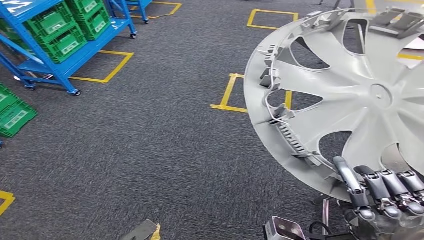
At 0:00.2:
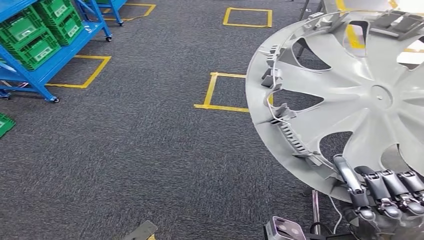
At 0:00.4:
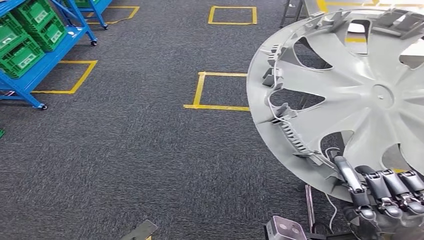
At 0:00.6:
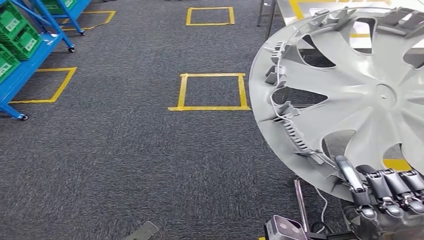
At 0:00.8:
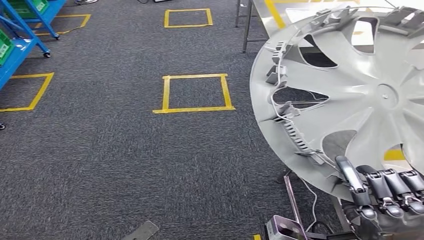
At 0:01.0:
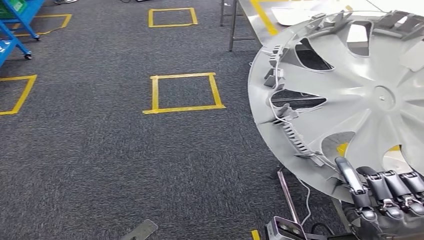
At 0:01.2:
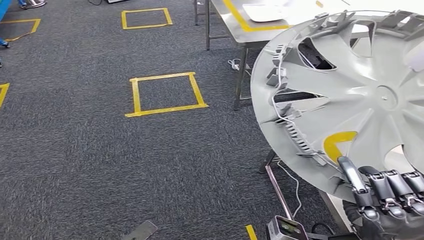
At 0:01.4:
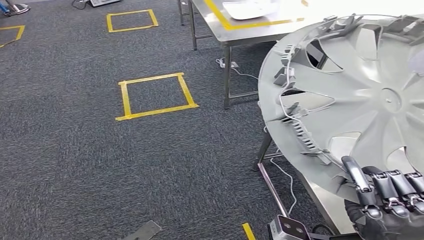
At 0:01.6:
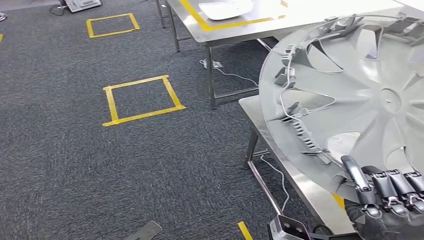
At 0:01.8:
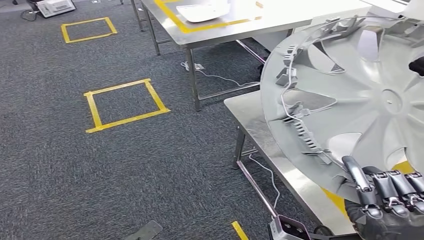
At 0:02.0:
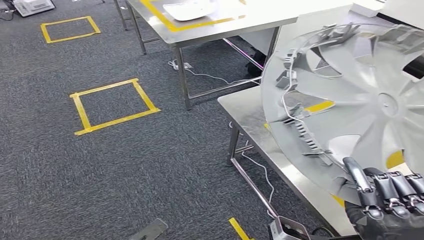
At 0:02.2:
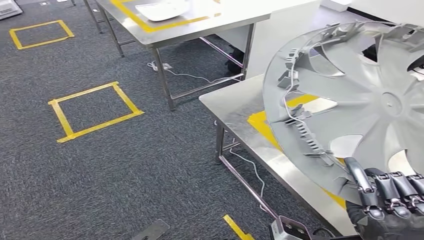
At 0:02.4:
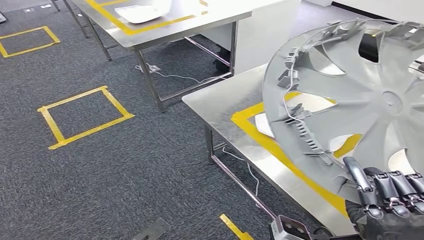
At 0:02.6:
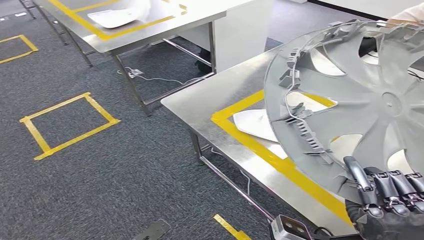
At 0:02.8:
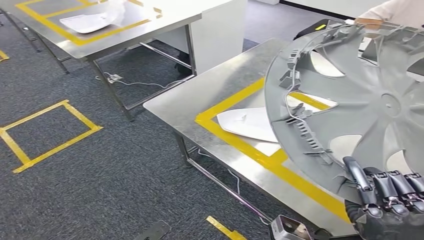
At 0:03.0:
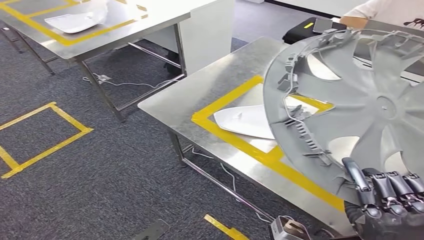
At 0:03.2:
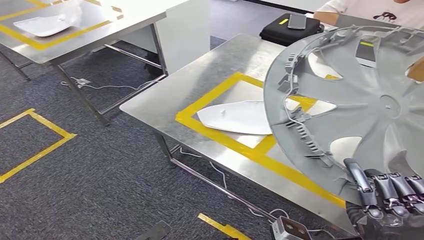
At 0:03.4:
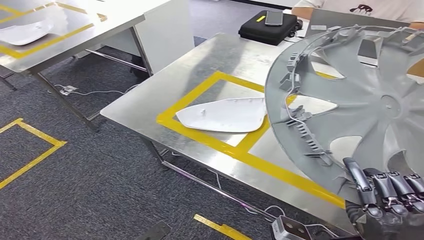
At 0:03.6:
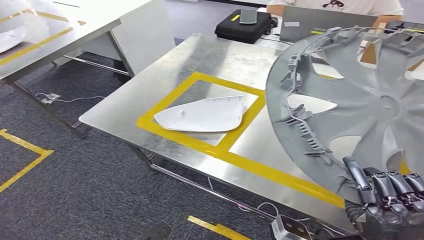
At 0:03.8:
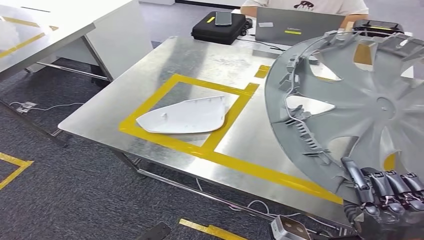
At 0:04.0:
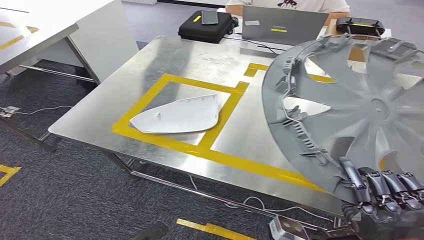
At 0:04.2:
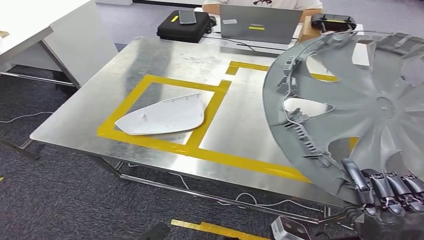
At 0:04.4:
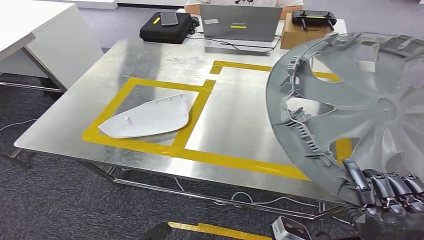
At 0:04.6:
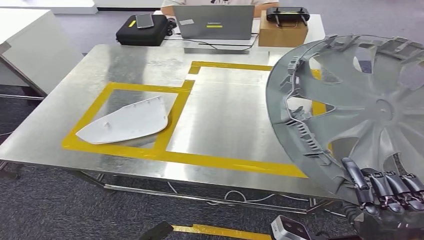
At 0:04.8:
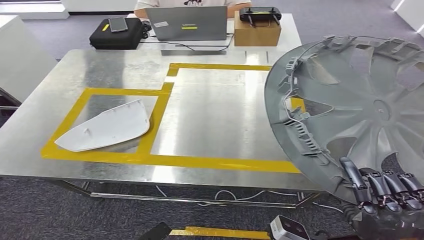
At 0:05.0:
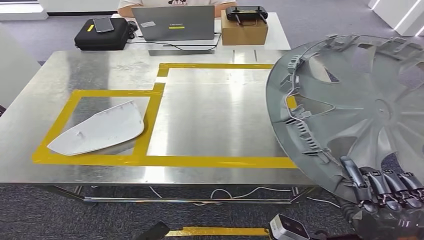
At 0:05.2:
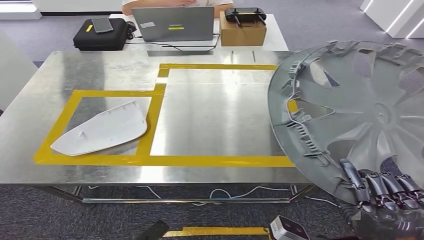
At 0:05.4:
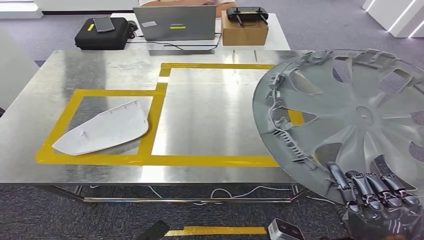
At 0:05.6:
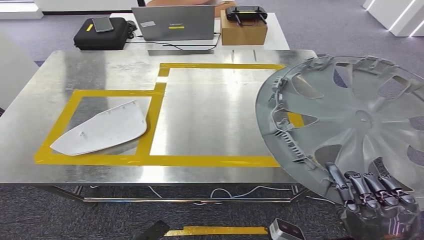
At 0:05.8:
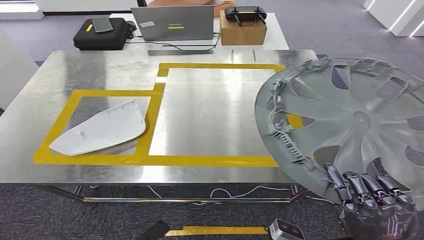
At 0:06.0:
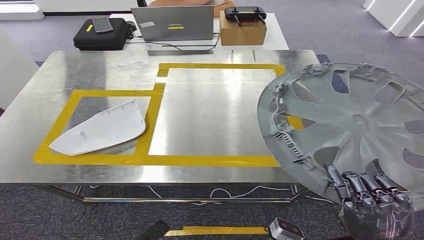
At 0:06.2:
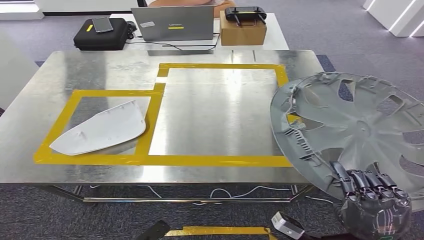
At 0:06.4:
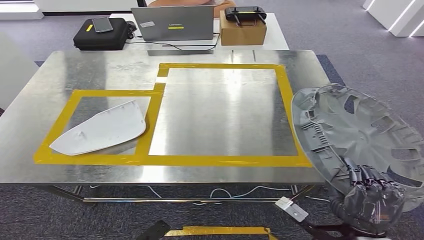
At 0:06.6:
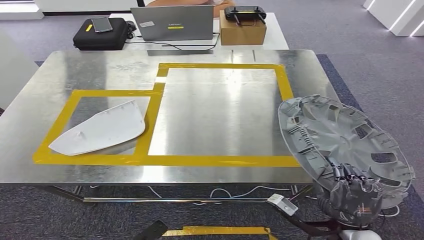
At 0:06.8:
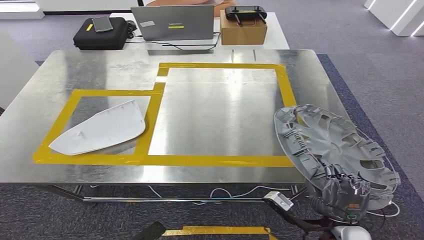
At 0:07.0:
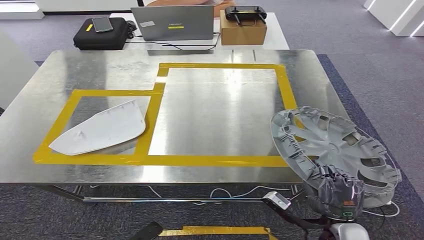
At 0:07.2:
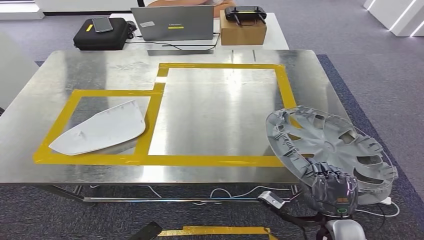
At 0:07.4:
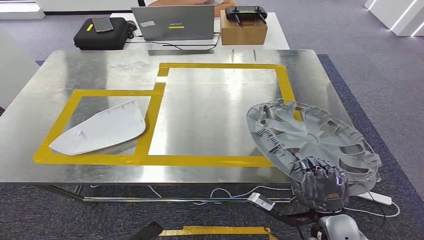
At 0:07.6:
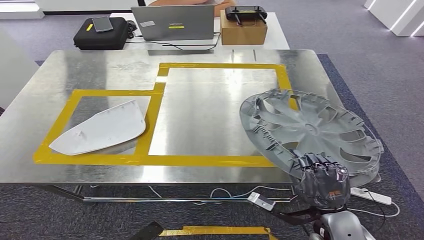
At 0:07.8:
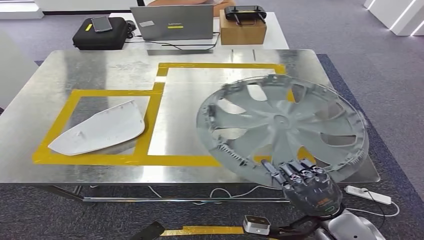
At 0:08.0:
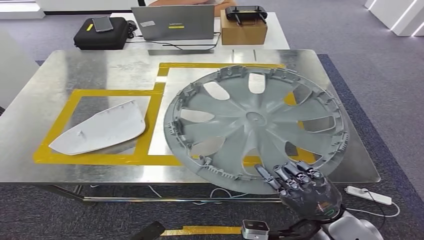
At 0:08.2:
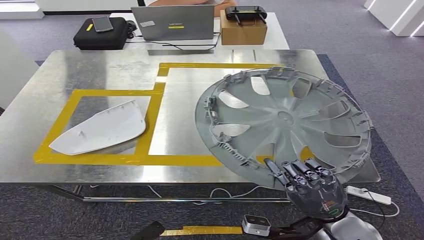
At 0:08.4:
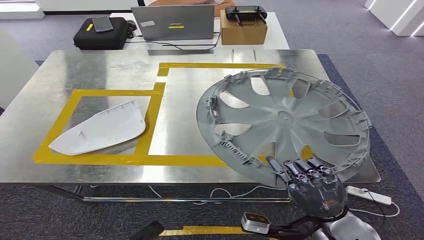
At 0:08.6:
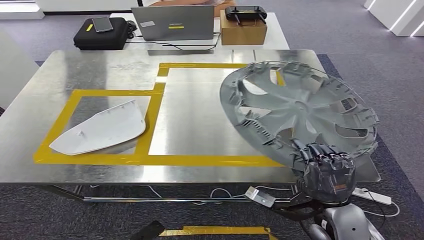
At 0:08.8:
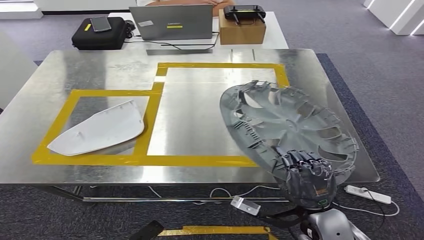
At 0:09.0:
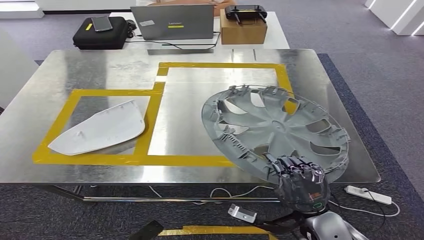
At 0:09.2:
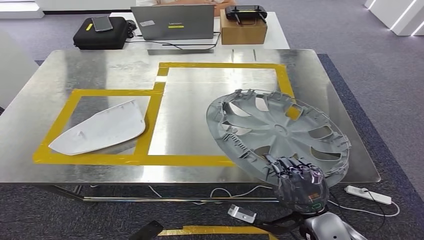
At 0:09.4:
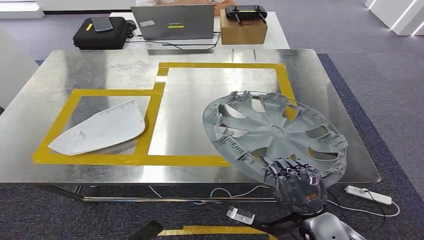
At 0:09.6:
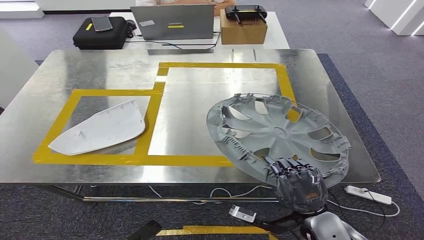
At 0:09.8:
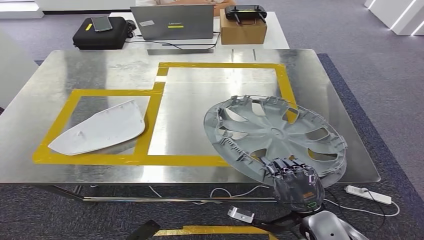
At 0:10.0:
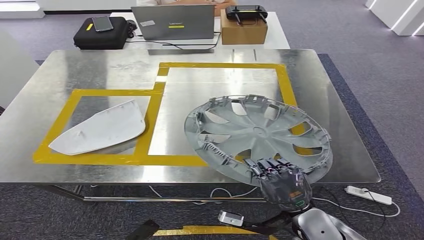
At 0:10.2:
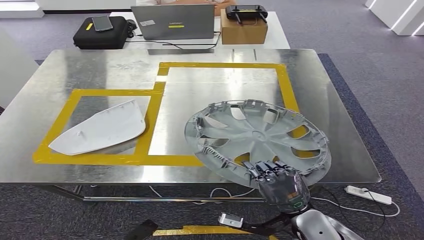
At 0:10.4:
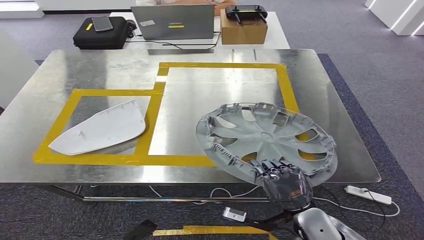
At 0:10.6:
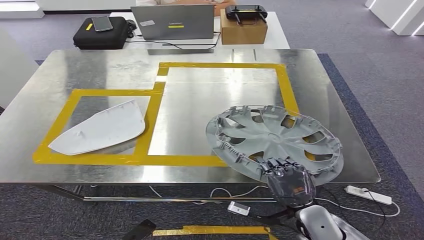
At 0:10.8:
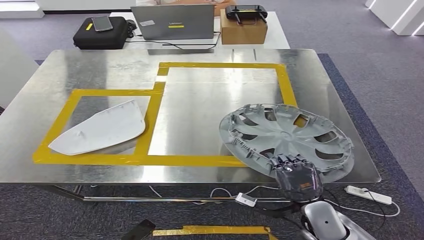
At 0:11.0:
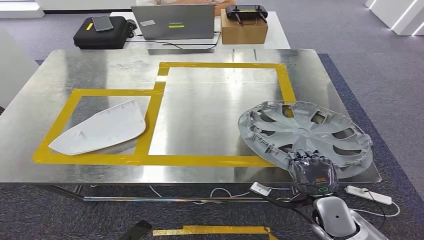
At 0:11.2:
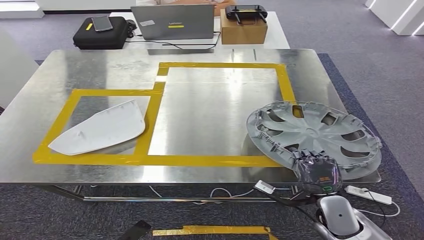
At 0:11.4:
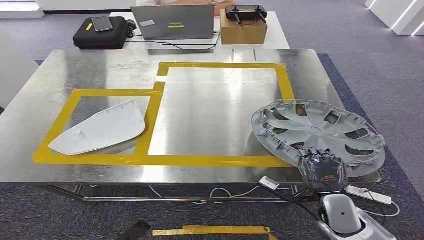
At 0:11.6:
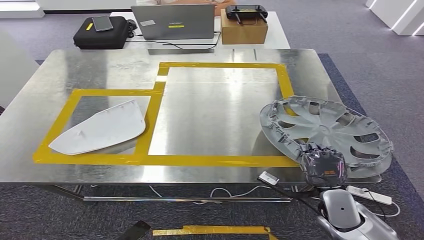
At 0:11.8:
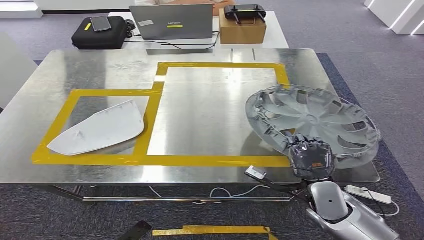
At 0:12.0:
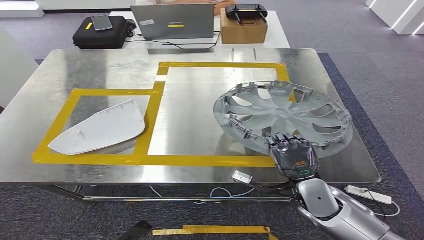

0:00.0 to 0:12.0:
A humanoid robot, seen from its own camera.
Step, 0:00.0 to 0:03.4: Bring the small component to the front of the workbench.
0:06.0 to 0:07.6: The right hand goes approximately 10 cm downward and forward.
0:09.0 to 0:10.4: The hands make only small movements.
0:10.4 to 0:12.0: The right hand is displaced forward by approximately 10 cm.

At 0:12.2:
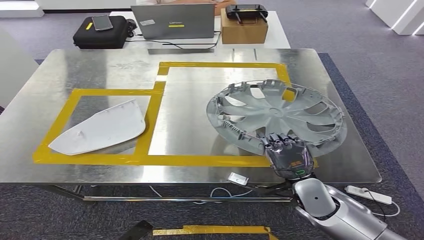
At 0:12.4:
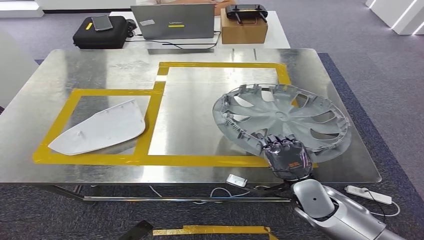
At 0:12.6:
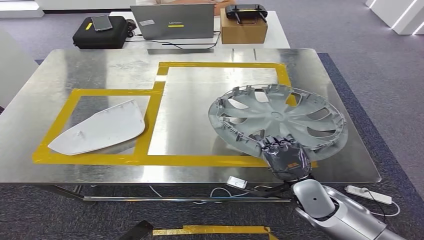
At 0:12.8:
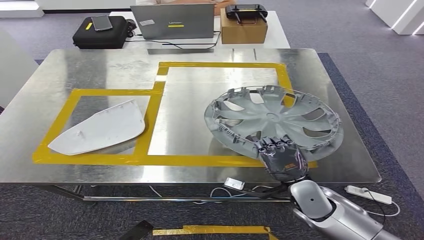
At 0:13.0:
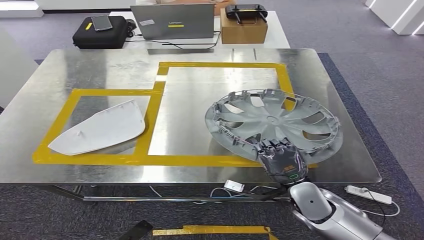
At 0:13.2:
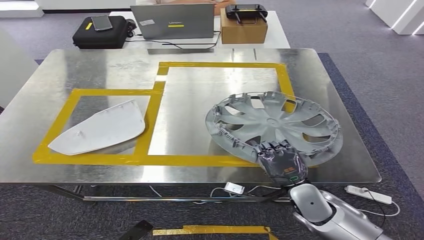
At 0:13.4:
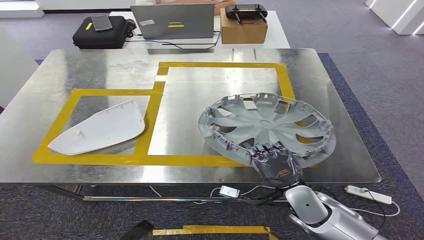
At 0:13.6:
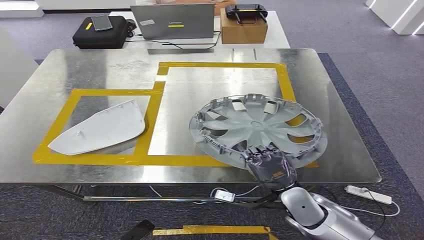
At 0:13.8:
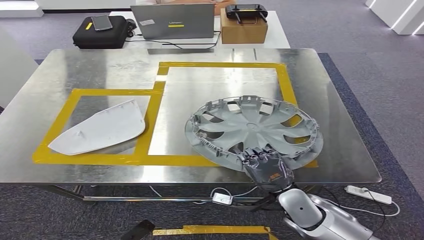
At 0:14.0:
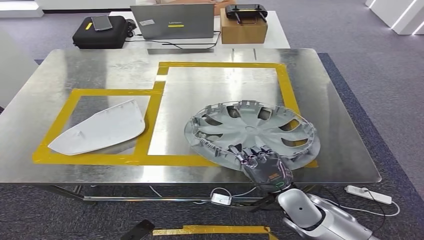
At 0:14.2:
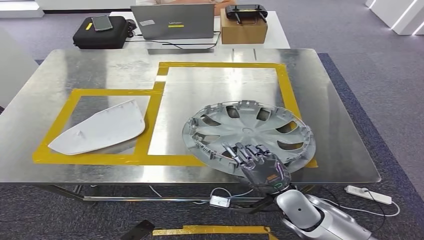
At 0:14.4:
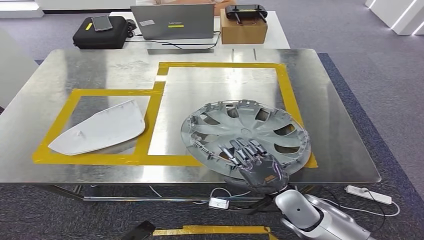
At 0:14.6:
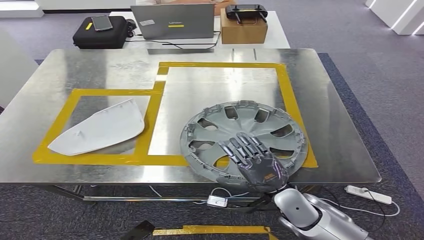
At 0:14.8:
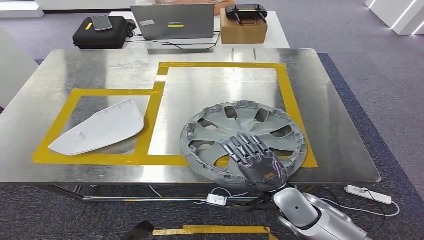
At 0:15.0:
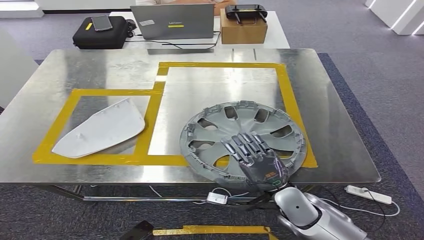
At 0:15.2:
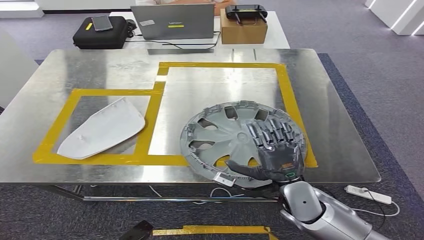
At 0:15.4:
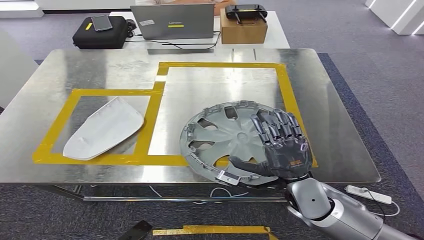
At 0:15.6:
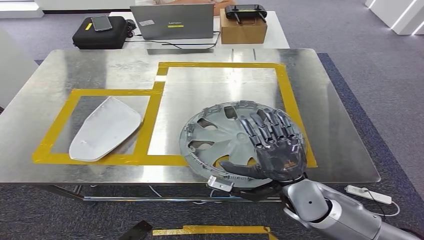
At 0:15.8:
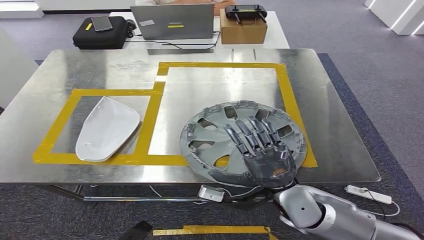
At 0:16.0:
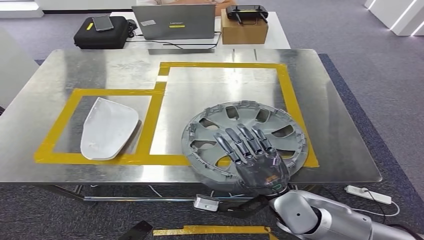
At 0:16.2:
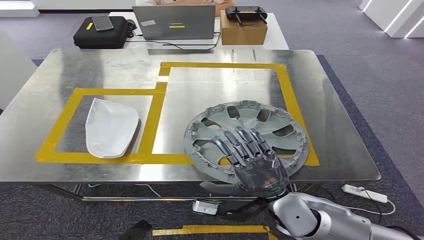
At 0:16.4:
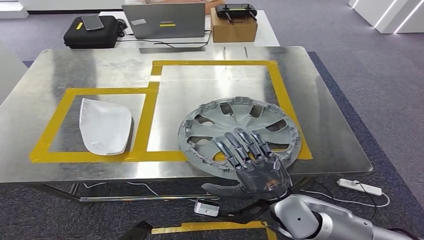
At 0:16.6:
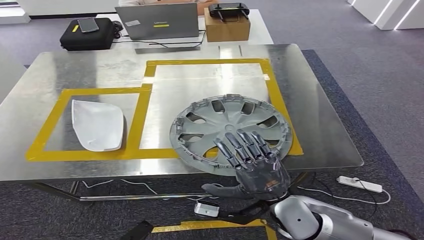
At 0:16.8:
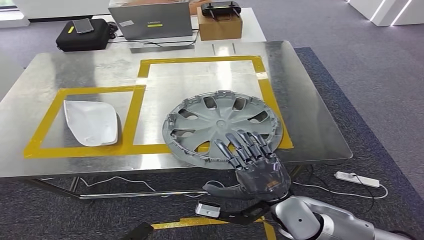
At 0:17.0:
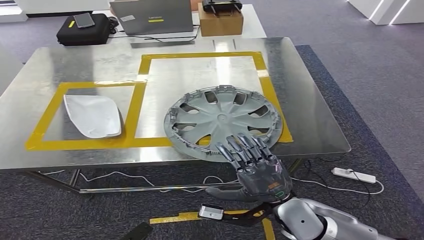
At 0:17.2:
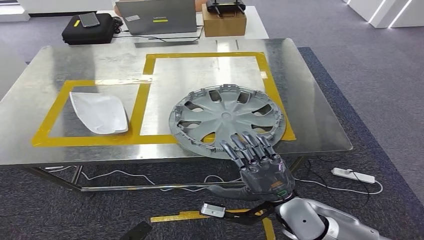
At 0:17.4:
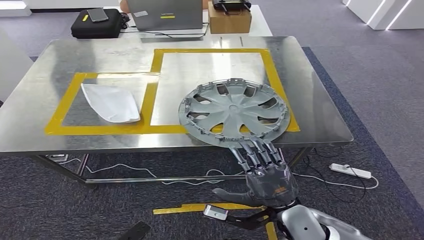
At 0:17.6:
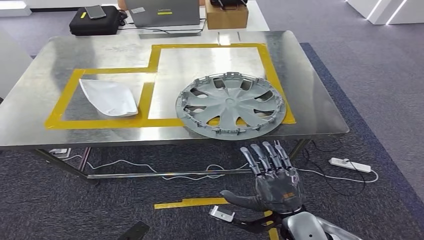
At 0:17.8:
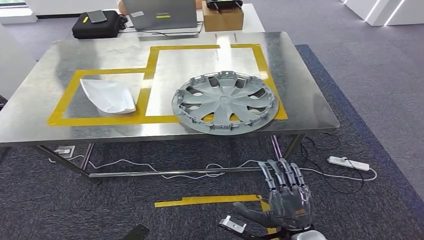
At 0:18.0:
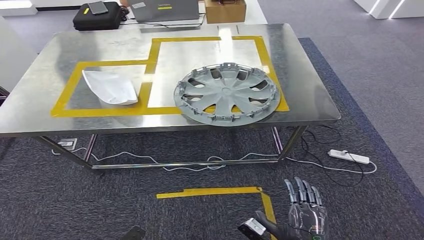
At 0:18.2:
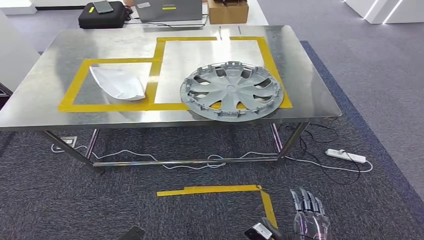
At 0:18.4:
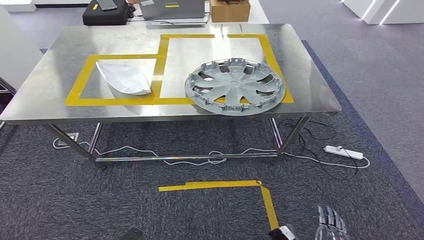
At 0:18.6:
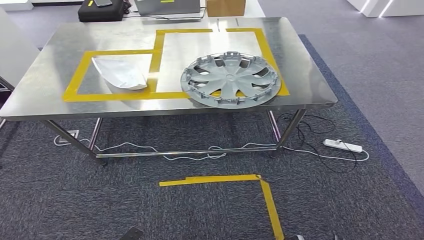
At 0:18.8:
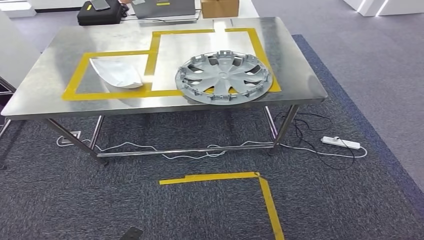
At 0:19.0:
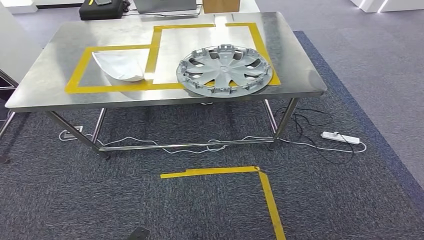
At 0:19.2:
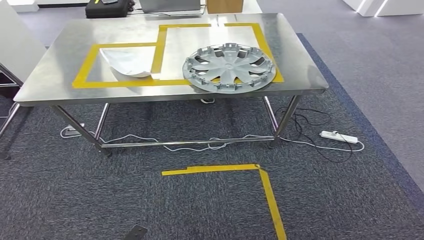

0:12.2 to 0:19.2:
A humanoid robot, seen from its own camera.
0:12.2 to 0:15.0: The hands move only a little.
